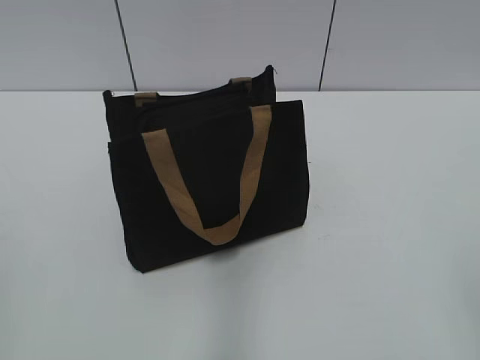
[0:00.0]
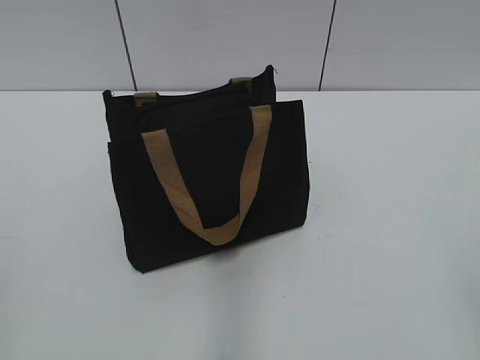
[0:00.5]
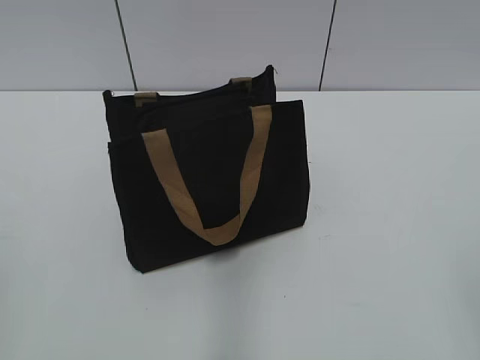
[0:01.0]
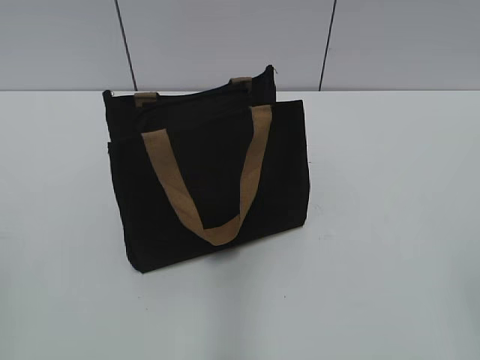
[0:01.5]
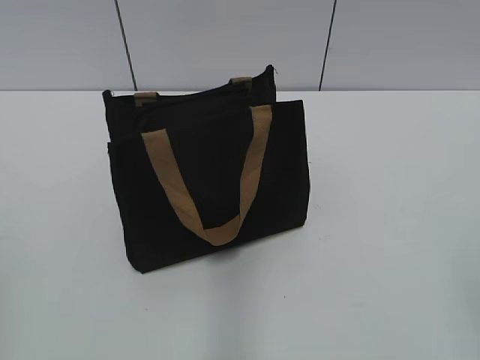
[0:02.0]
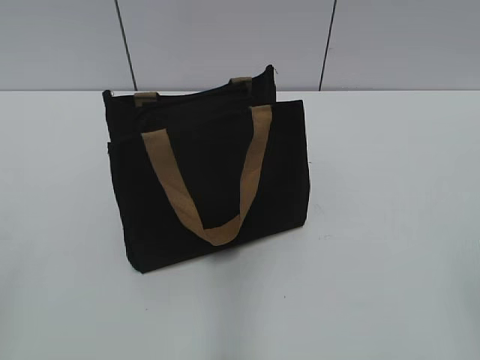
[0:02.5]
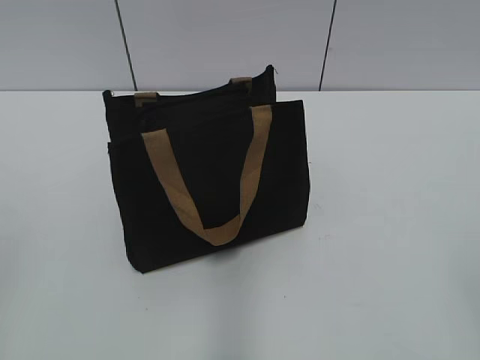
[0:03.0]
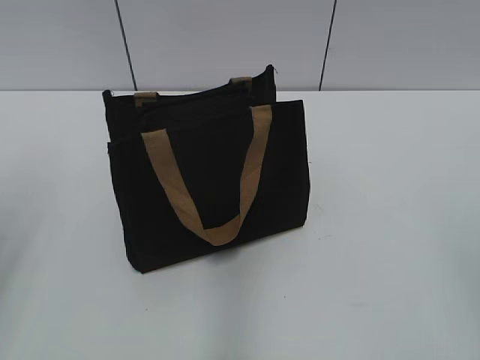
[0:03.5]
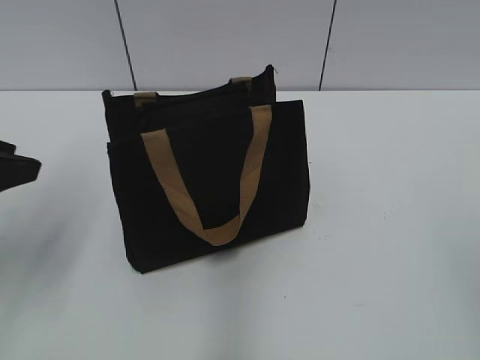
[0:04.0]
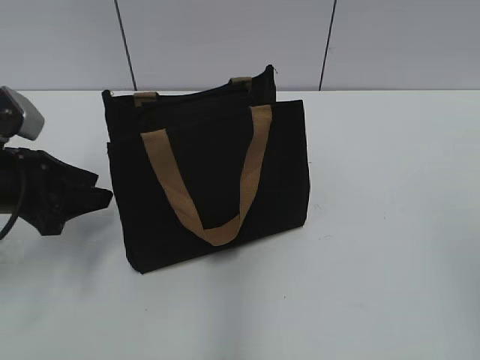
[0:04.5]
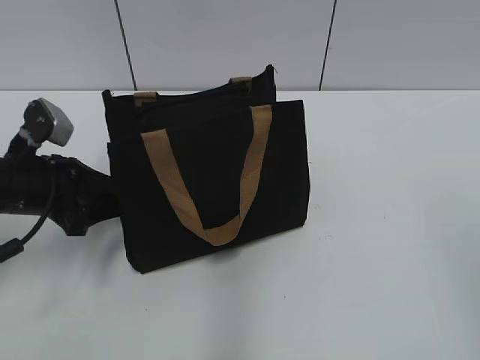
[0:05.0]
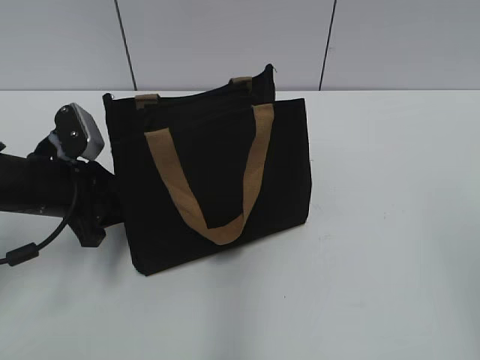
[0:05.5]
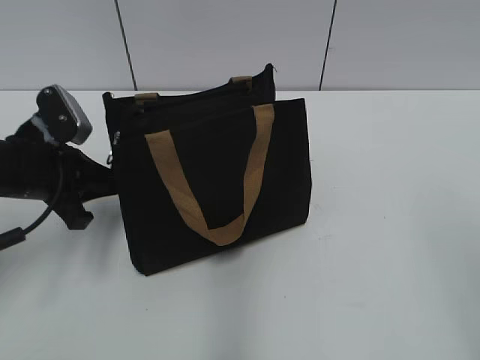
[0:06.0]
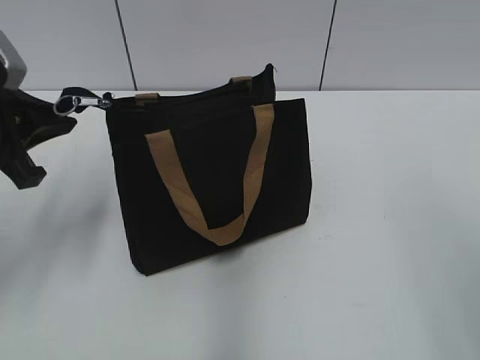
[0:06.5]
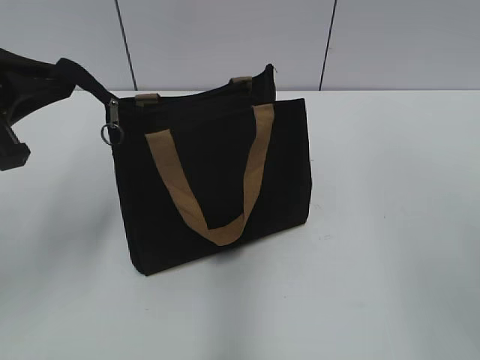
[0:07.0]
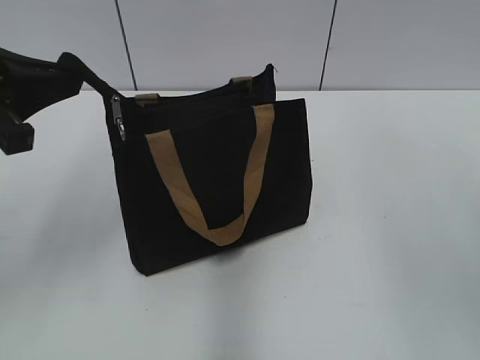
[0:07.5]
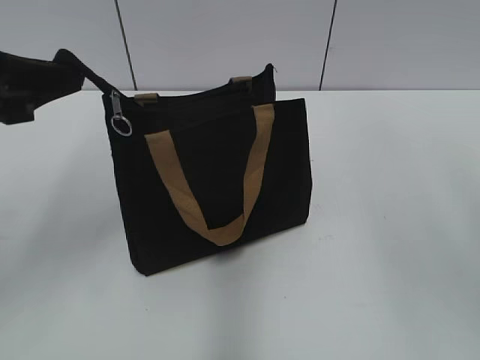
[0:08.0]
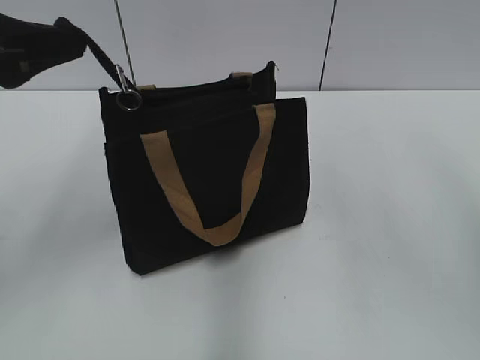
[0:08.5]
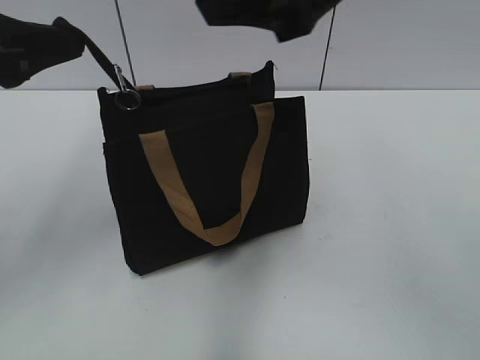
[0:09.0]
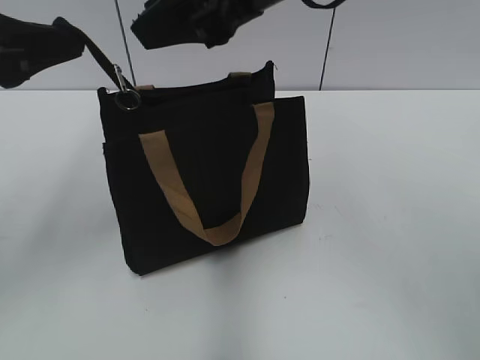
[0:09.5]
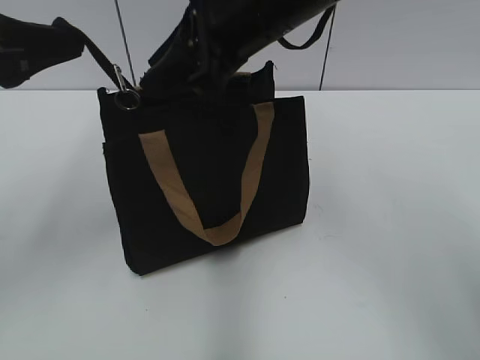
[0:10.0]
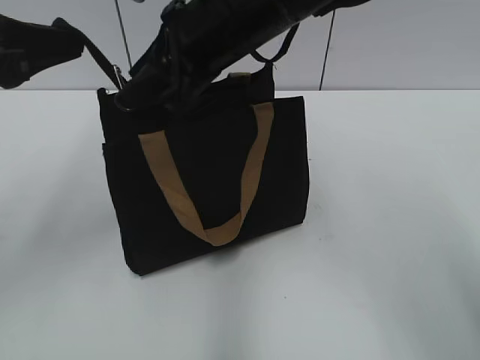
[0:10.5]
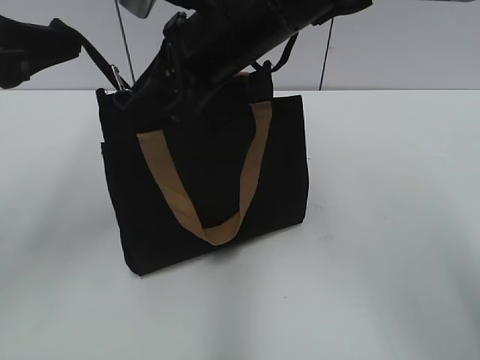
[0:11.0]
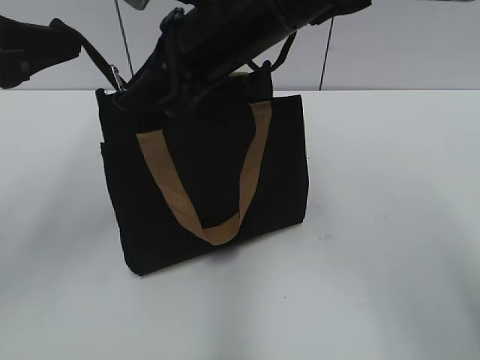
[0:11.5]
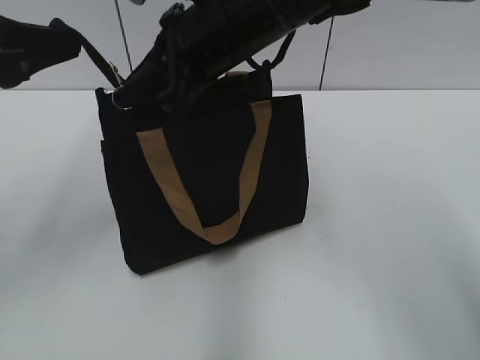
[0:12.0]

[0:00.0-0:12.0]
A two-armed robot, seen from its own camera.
0:02.0 to 0:04.0: The left gripper shifts some 20 cm forward.
0:04.0 to 0:06.0: The left gripper shifts about 10 cm downward and forward, and closes its fingers.
0:06.0 to 0:08.0: The left gripper goes approximately 15 cm upward and backward.
0:08.0 to 0:10.0: The right gripper heads to the left, forward and downward, covering about 30 cm.
0:10.0 to 0:12.0: The right gripper closes up.

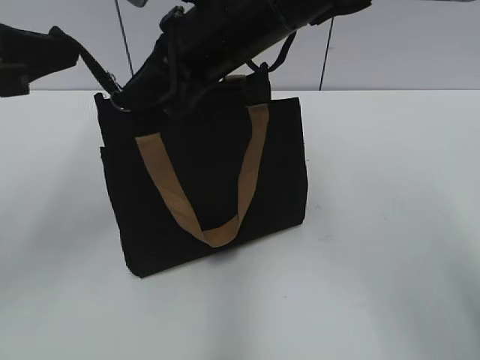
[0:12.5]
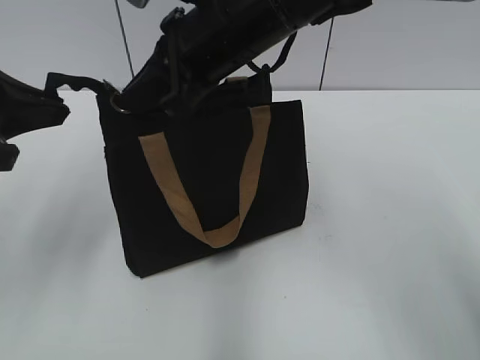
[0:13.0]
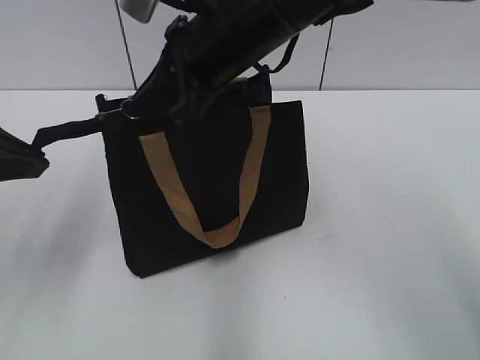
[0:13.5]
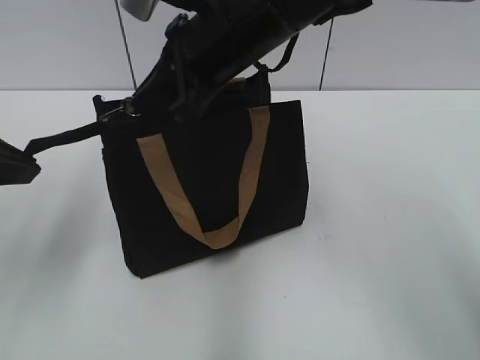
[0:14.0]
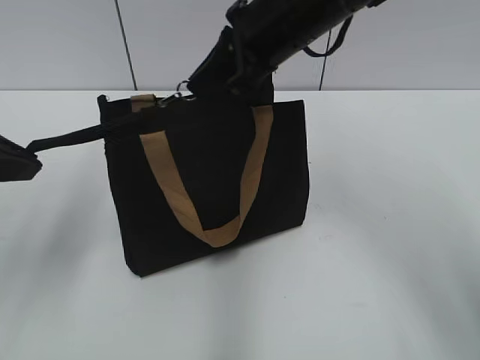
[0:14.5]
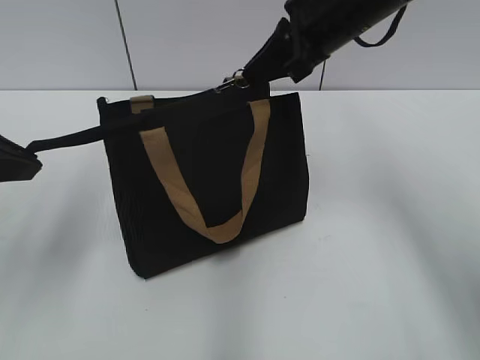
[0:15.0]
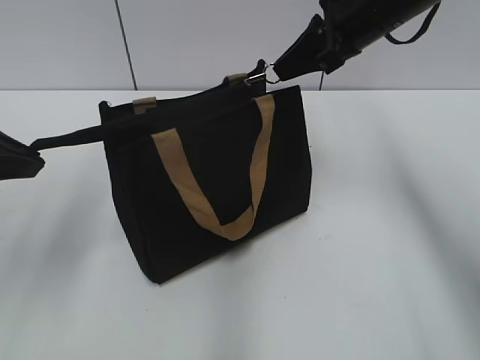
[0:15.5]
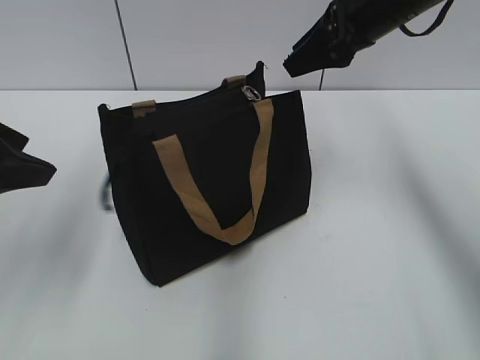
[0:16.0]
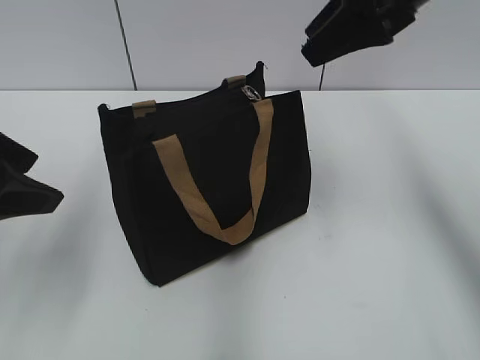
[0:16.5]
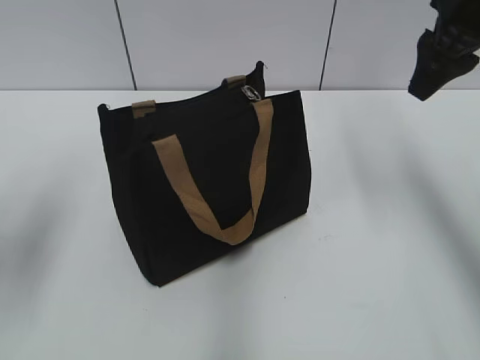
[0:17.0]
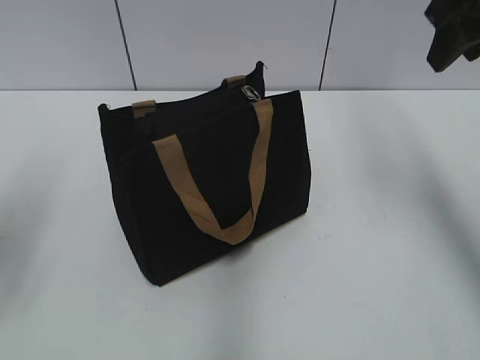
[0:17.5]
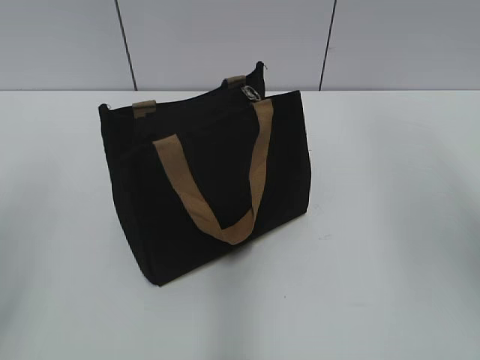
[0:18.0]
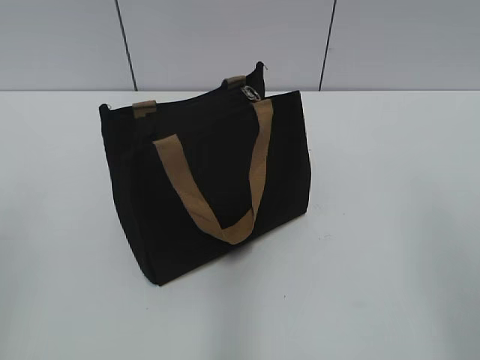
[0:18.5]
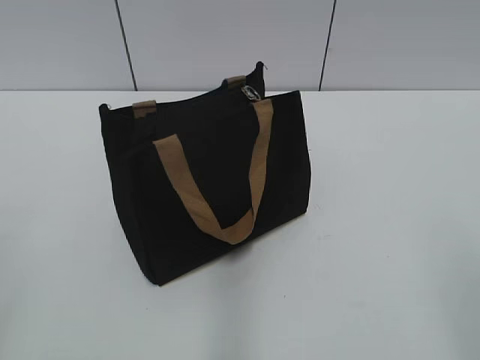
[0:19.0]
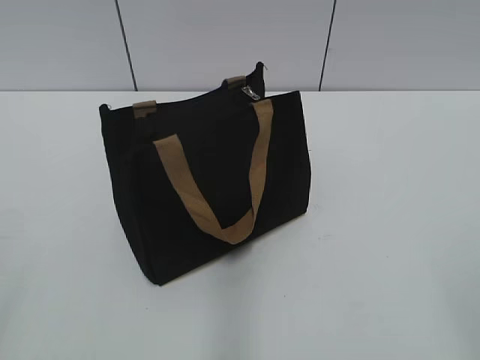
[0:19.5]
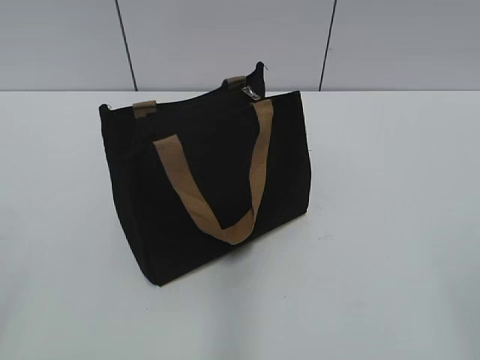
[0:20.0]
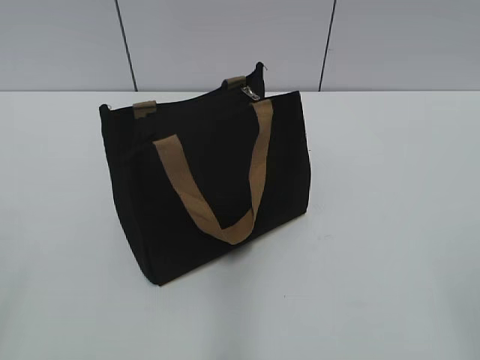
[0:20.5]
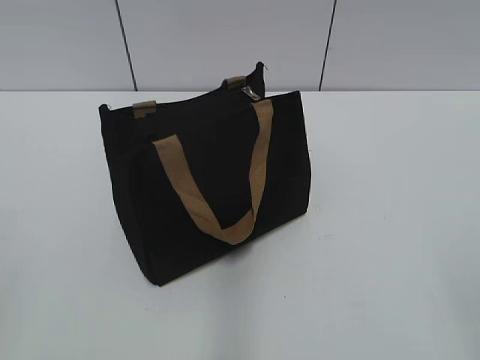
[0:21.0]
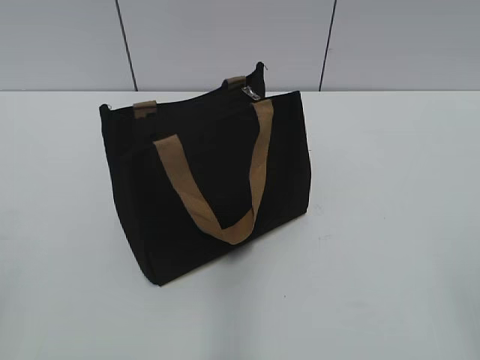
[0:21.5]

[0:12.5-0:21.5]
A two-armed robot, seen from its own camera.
Step, 0:12.5 to 0:15.5: Zip up the bag with your right hand.
0:12.5 to 0:14.5: The right gripper shifts about 5 cm to the right.
0:14.5 to 0:17.0: The left gripper opens up. The right gripper heads to the right, covering approximately 15 cm, and opens.
0:17.0 to 0:19.5: The left gripper shifts about 20 cm backward. The right gripper heads backward, covering approximately 35 cm.
